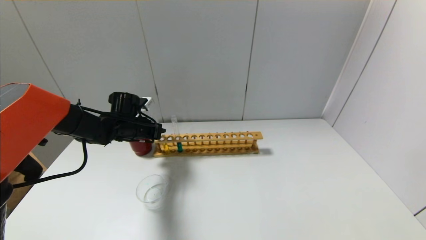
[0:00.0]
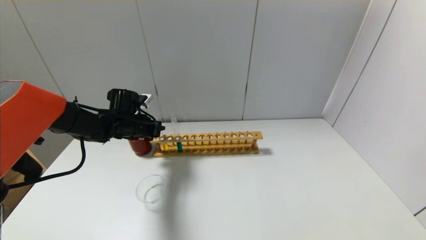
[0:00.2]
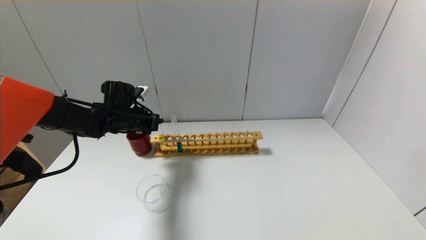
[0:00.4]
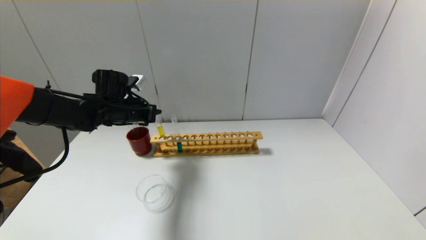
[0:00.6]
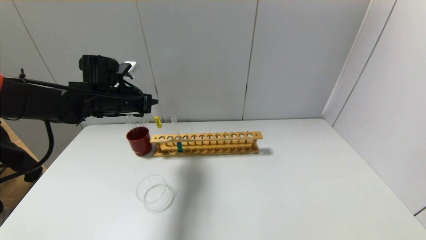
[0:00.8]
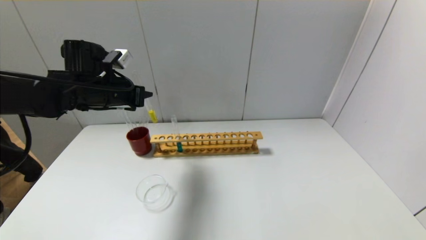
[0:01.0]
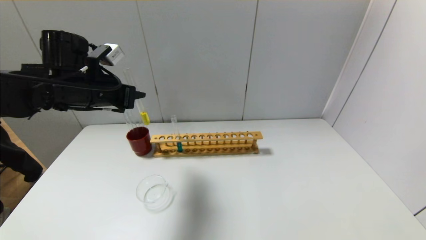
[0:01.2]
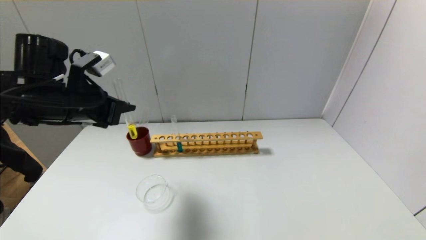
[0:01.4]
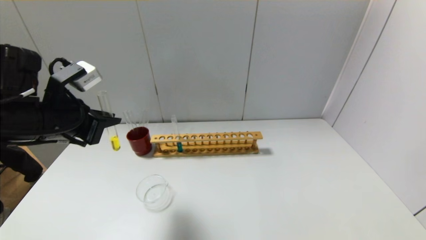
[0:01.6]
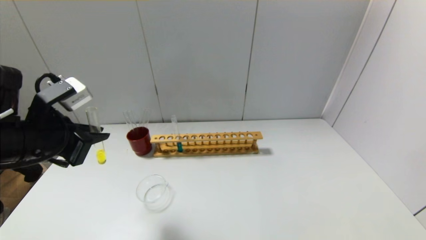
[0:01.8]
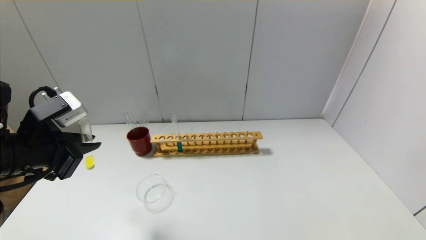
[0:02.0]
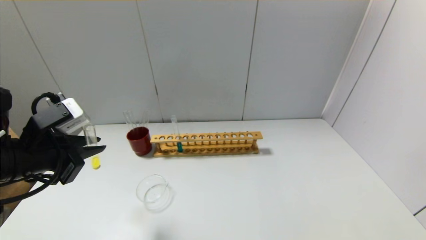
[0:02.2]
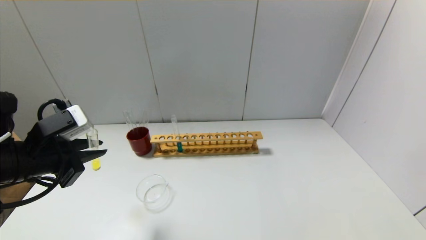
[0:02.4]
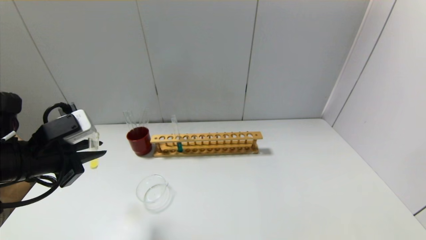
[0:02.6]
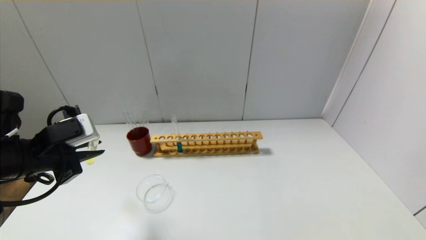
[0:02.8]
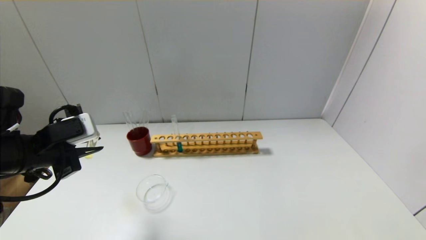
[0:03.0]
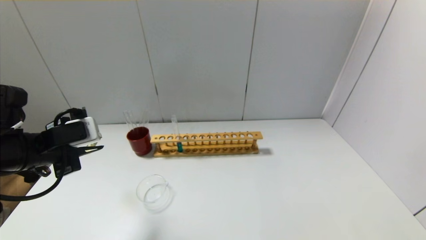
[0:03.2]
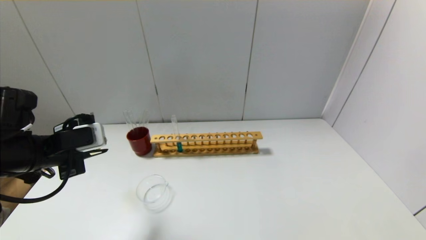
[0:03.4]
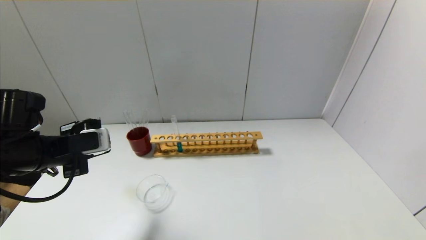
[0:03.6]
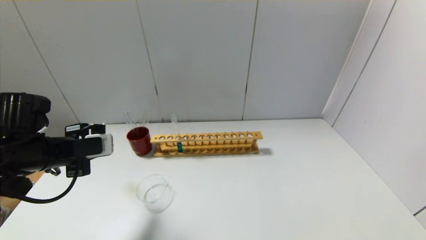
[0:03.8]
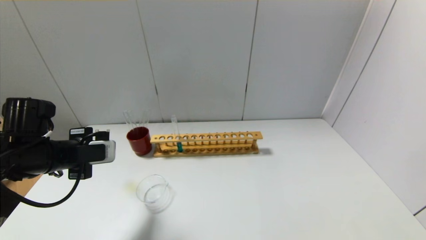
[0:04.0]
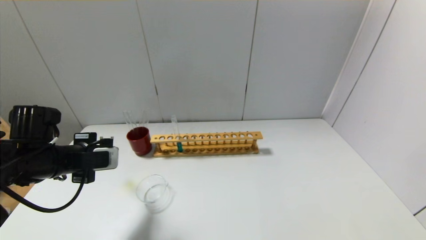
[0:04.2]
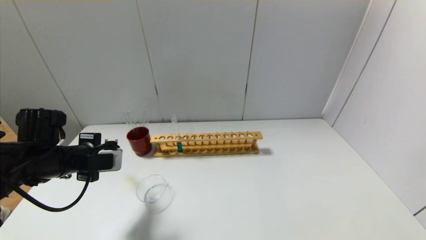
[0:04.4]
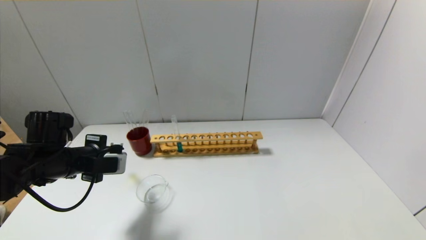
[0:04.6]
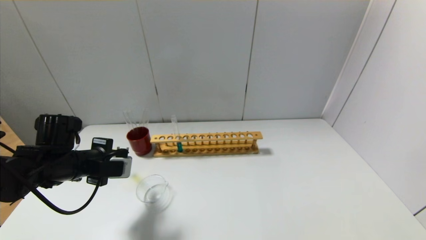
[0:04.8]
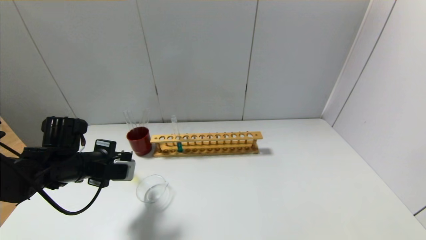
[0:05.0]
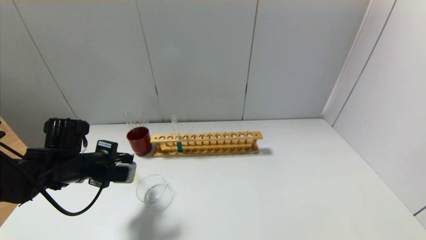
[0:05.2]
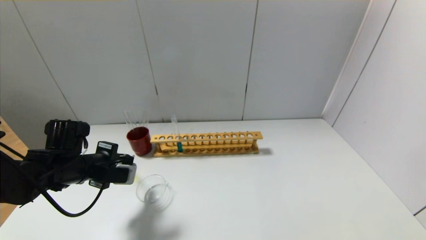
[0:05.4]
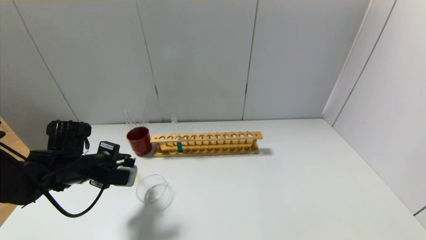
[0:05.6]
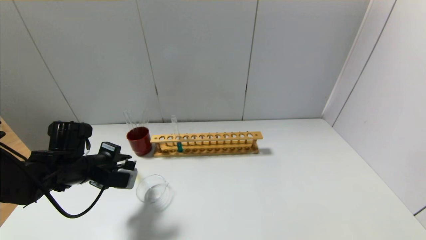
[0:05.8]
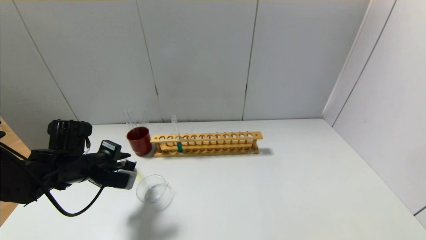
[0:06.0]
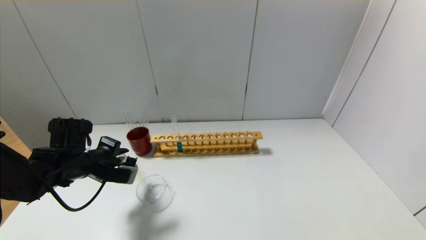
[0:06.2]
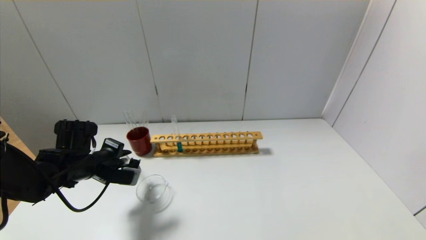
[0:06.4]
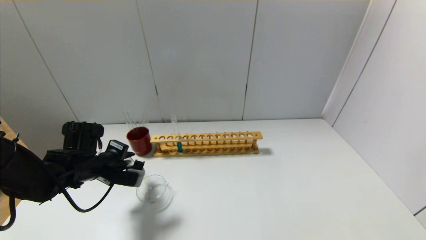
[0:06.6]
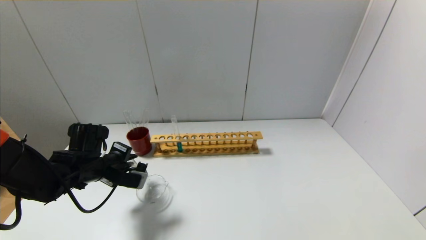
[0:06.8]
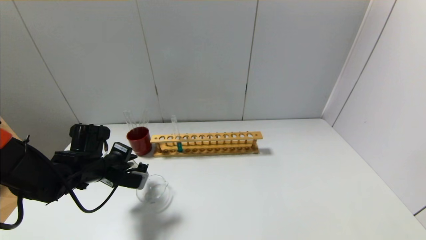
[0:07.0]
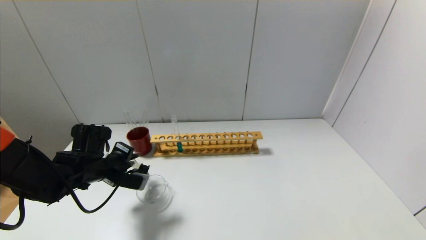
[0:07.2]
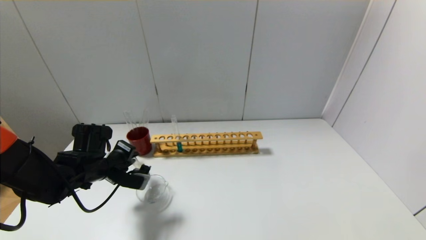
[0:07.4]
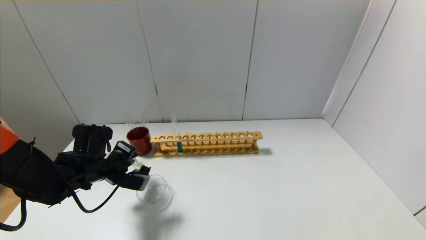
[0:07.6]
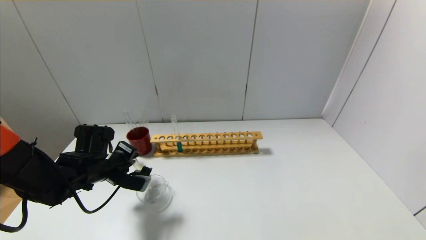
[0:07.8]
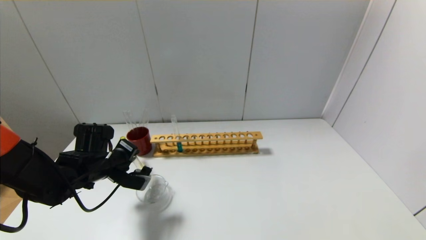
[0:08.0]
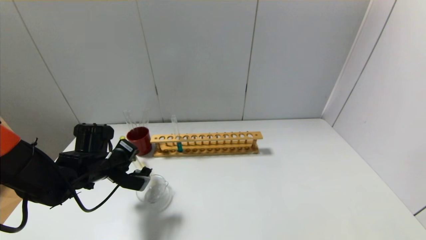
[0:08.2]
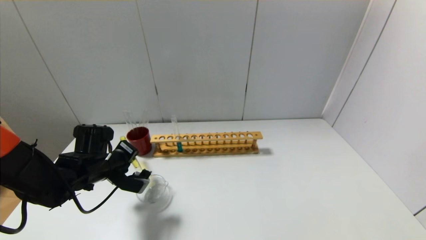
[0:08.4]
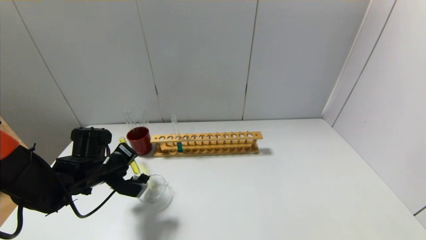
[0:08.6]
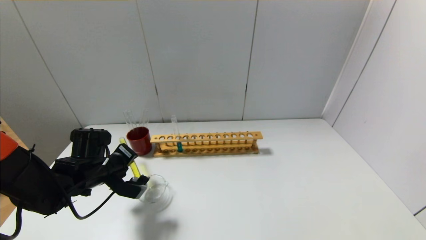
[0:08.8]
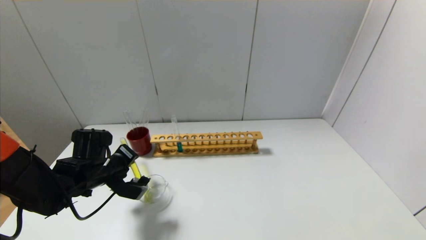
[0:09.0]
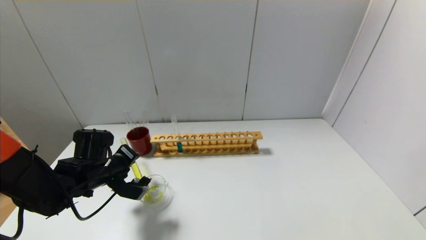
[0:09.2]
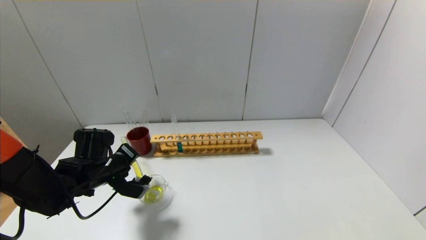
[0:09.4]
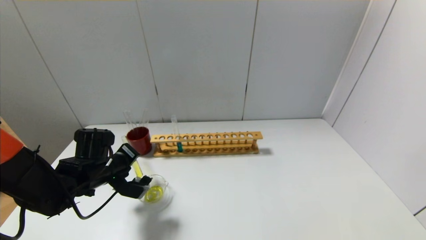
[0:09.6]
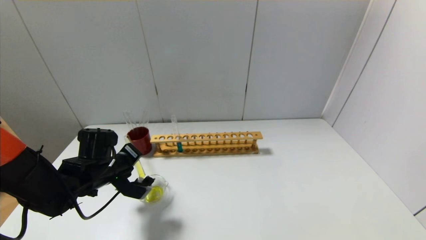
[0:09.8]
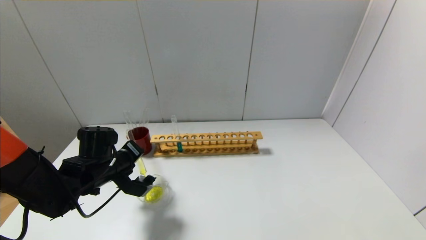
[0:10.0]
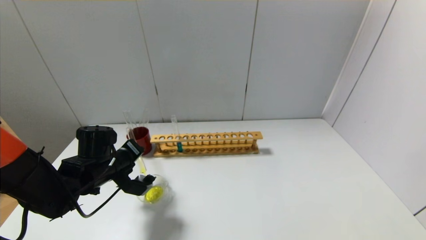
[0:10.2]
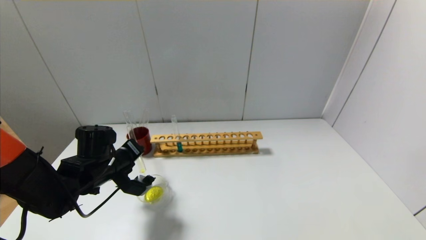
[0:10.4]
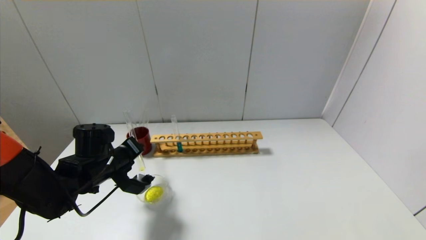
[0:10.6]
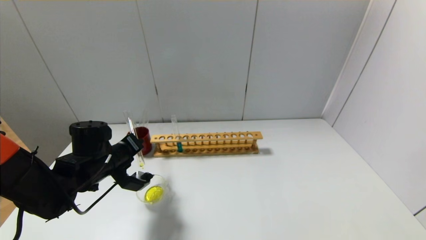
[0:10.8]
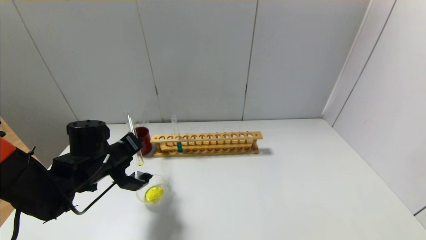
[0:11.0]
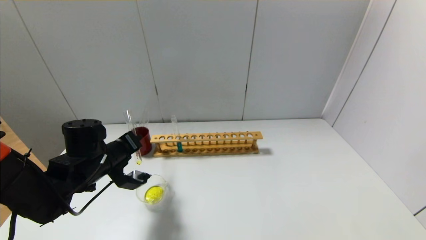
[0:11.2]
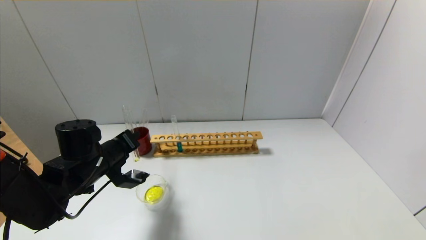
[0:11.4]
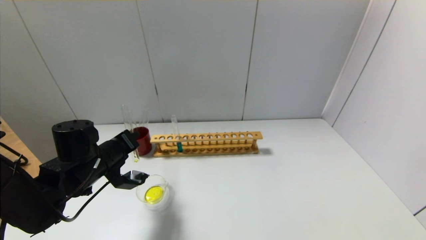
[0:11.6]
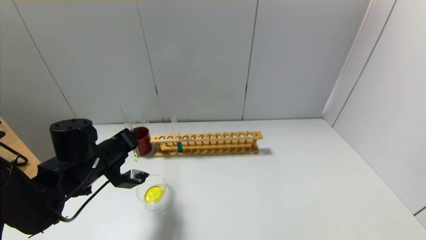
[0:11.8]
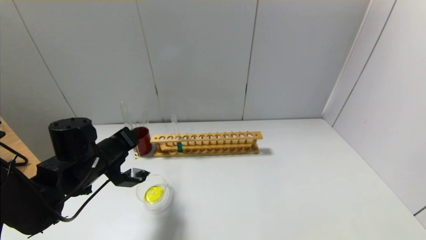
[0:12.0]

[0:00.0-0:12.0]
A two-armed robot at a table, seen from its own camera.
Step, 0:00.0 to 0:12.0: Pour the yellow reagent into the graduated cylinder with the left gripper.
0:00.0 to 0:01.6: The left gripper goes some 25 cm backward and upward.
0:01.6 to 0:03.0: The left gripper moves about 5 cm.
0:03.0 to 0:04.4: The left gripper is displaced downward by about 5 cm.
0:04.4 to 0:06.0: There are only small adjustments of the grippers.
0:06.0 to 0:07.6: The grippers stay close to where they were, moving slightly.
0:07.6 to 0:09.0: The grippers move only a little.
0:09.0 to 0:10.4: The grippers move only a little.
0:10.4 to 0:12.0: The grippers move only a little.

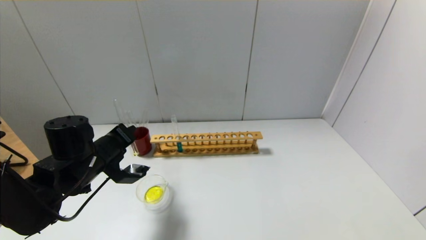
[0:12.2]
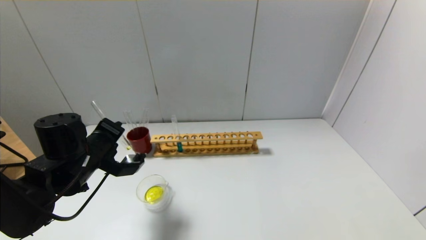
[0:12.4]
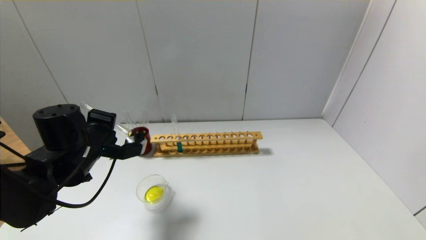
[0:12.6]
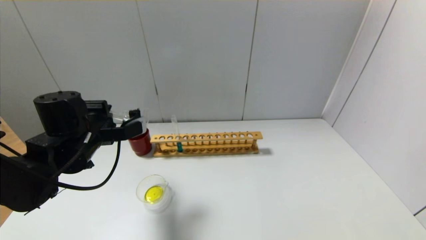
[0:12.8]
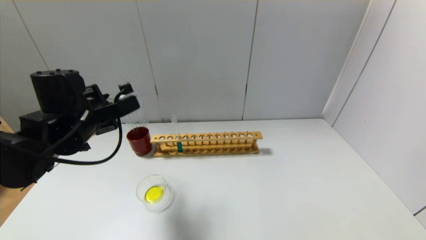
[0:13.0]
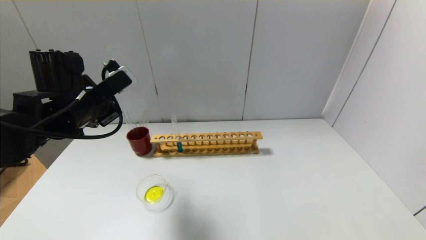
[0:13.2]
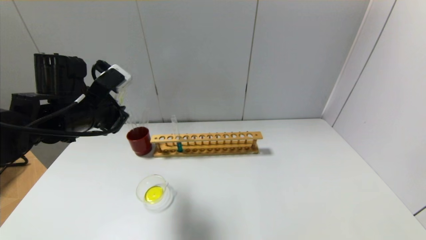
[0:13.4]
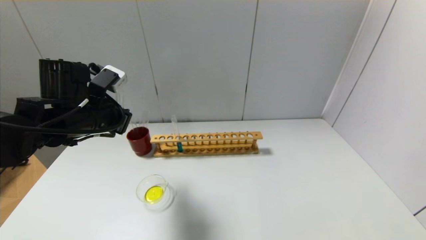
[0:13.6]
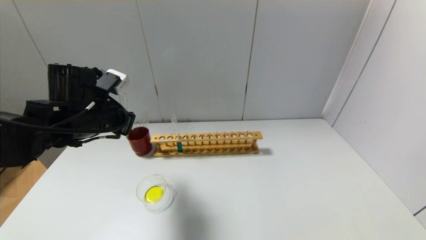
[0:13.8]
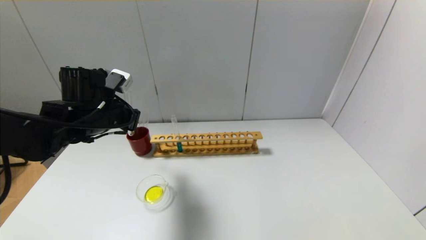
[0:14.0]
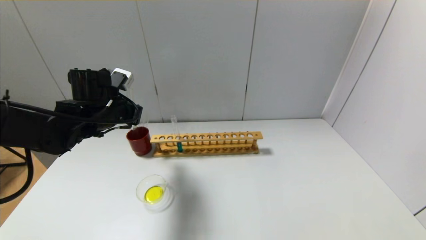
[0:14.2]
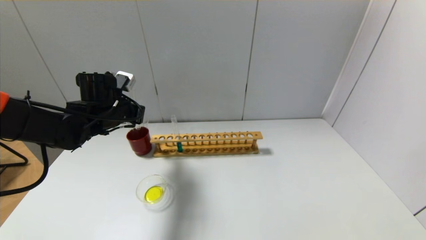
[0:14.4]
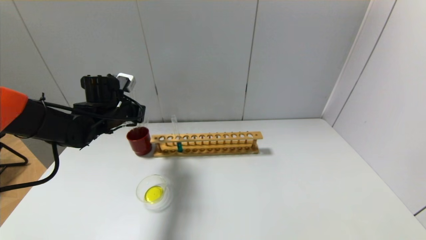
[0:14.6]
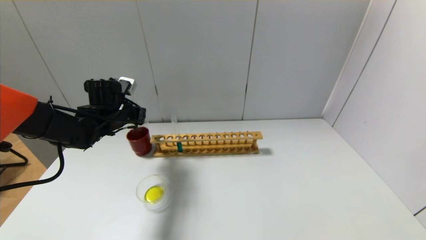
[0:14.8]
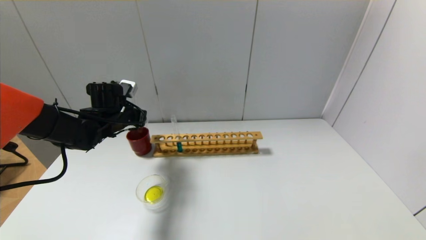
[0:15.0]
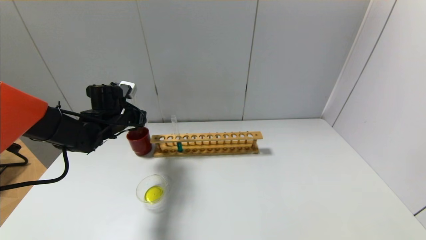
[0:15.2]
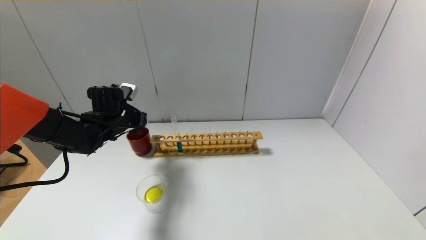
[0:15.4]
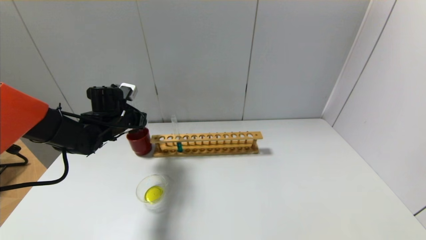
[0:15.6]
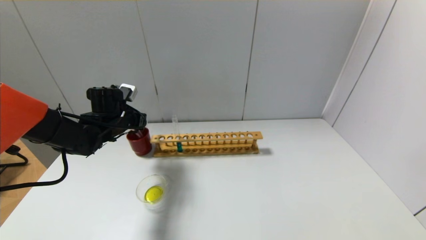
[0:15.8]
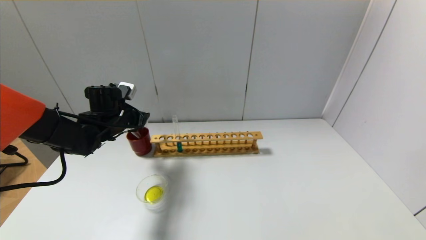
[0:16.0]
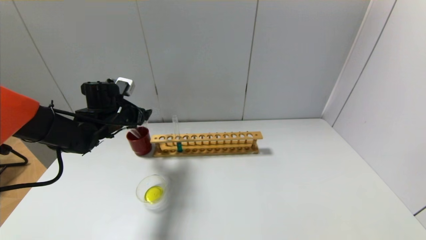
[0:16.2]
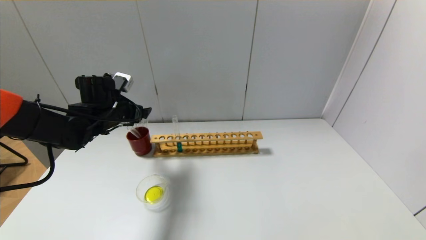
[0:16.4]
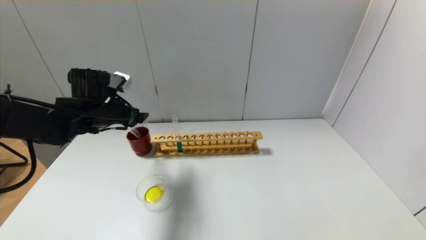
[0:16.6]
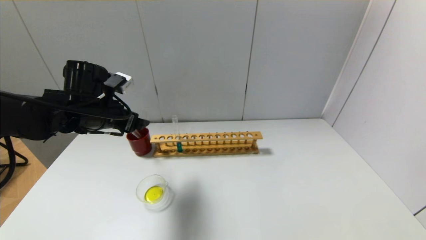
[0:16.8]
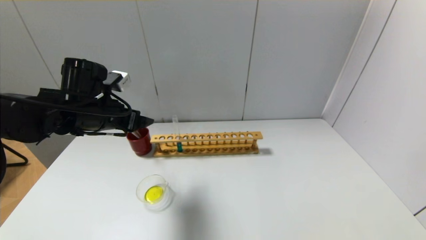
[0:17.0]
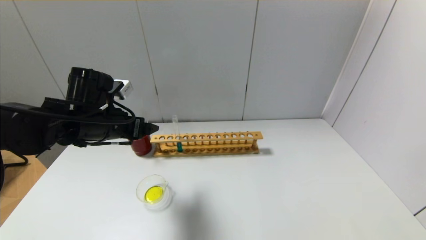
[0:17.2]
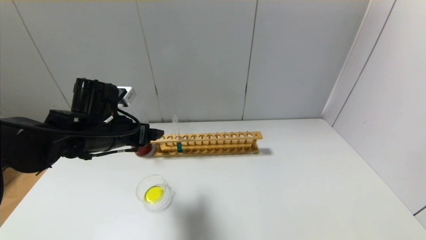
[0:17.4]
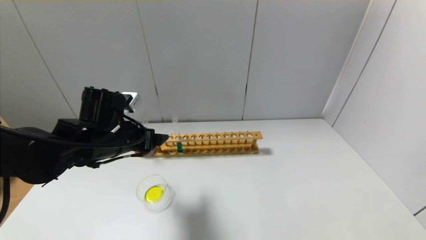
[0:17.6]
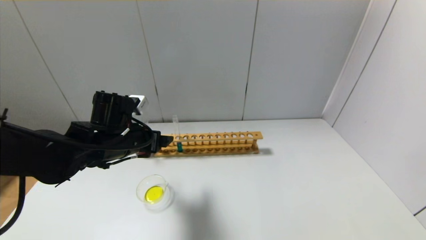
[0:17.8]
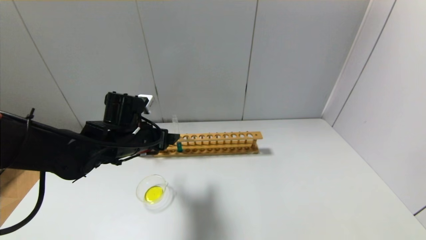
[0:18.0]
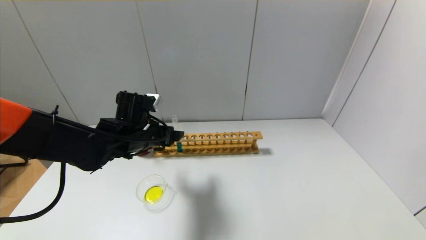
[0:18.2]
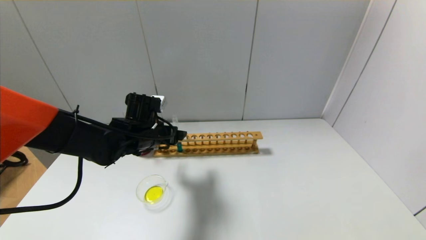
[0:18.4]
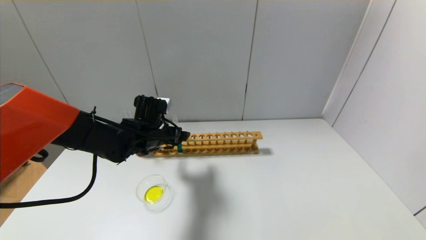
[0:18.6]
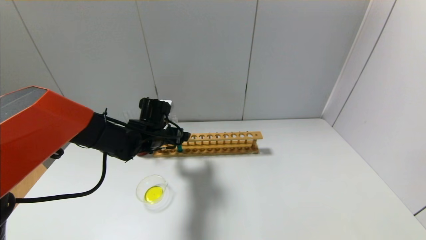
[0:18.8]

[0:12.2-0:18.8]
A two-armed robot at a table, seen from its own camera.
Step, 0:12.2 to 0:15.8: Place the test tube into the brown cup with the left gripper.
0:12.2 to 0:13.8: The left gripper shifts approximately 10 cm upward.
0:13.8 to 0:15.4: The left gripper shifts approximately 15 cm forward and downward.
0:15.4 to 0:17.2: The left gripper goes about 10 cm backward and upward, and opens.
0:17.2 to 0:18.8: The left gripper is displaced downward, forward and to the right by roughly 15 cm.
